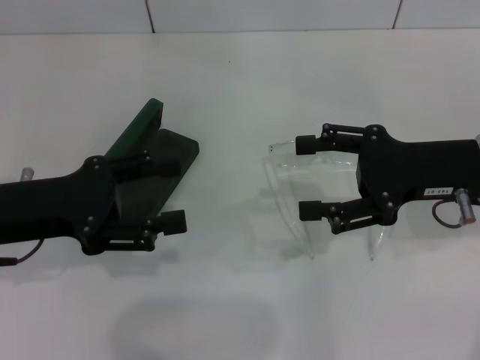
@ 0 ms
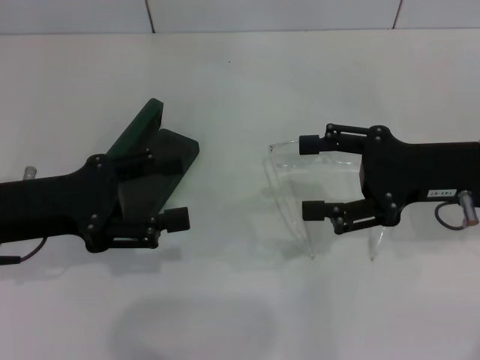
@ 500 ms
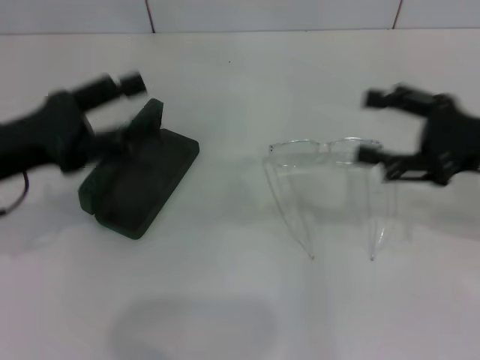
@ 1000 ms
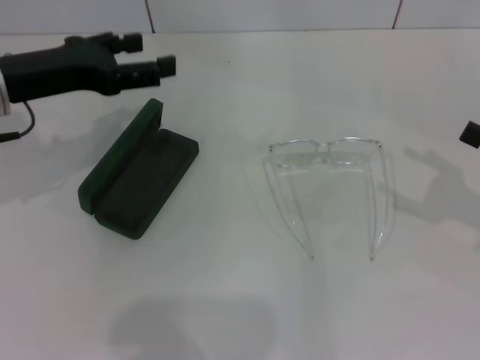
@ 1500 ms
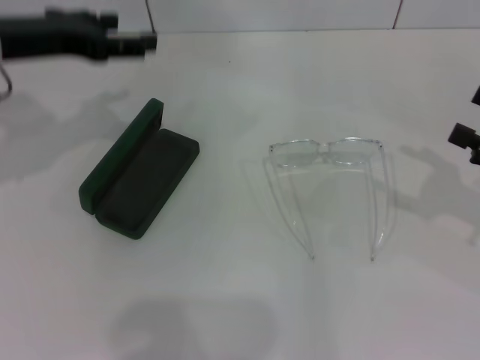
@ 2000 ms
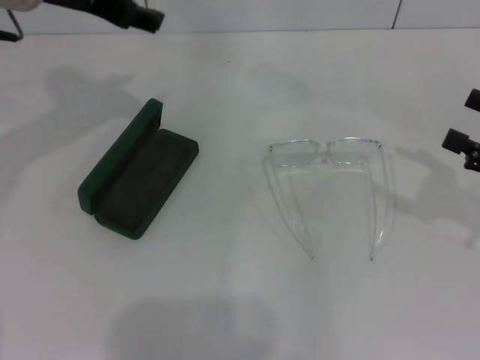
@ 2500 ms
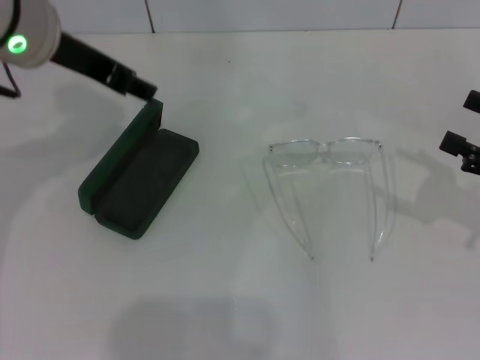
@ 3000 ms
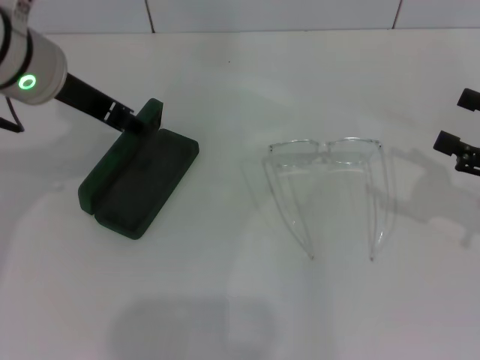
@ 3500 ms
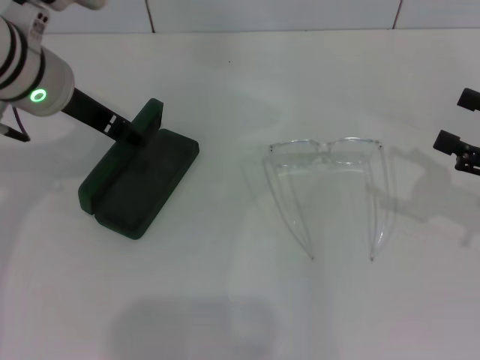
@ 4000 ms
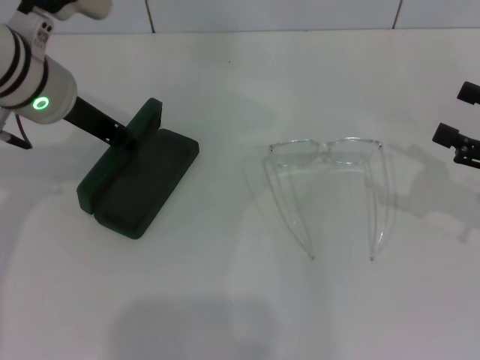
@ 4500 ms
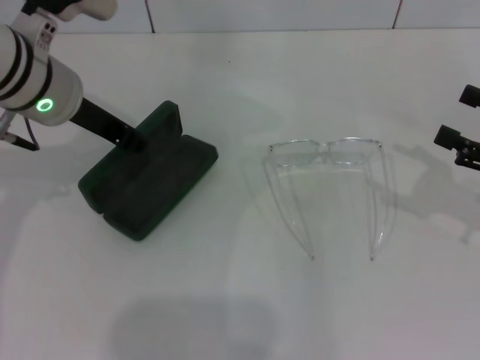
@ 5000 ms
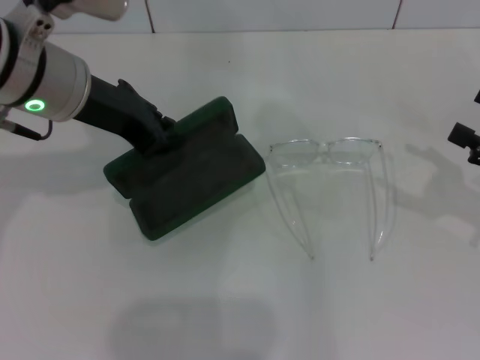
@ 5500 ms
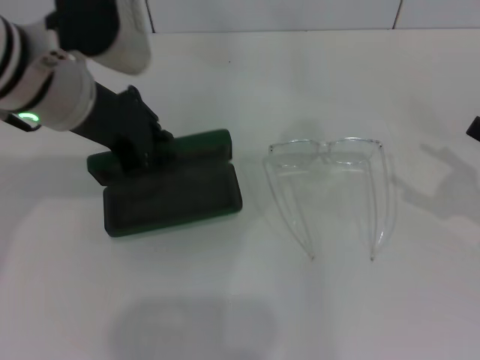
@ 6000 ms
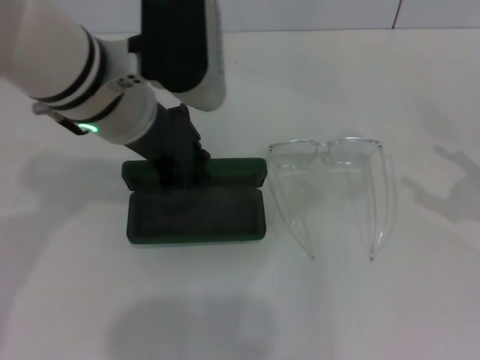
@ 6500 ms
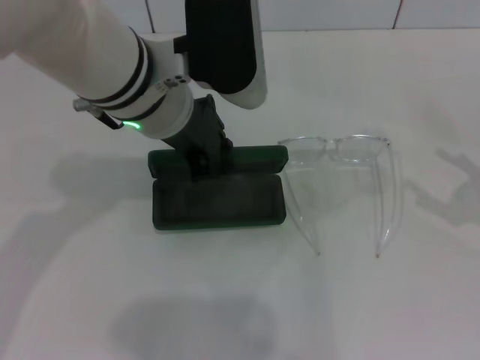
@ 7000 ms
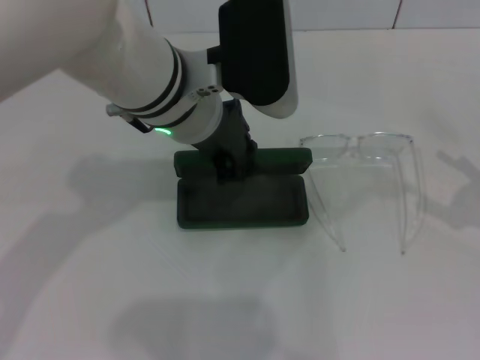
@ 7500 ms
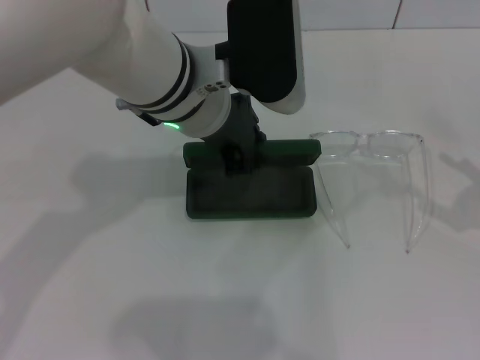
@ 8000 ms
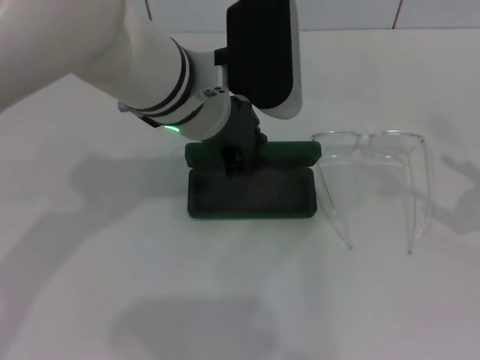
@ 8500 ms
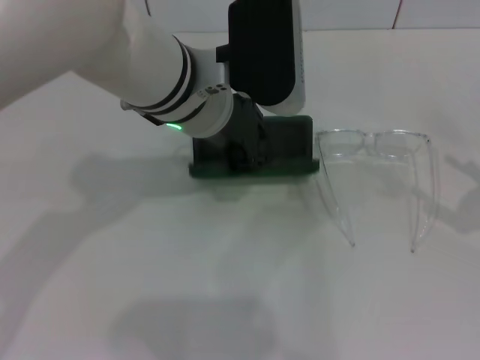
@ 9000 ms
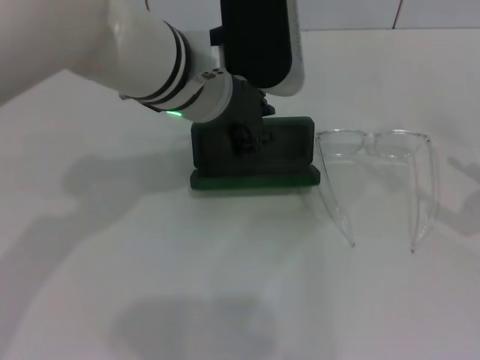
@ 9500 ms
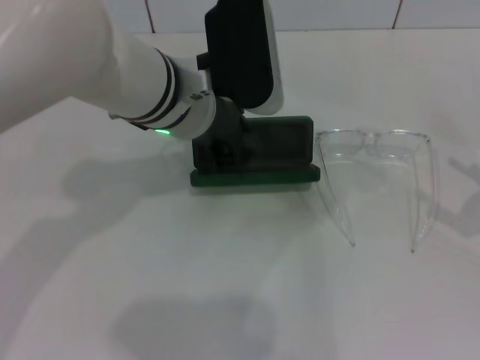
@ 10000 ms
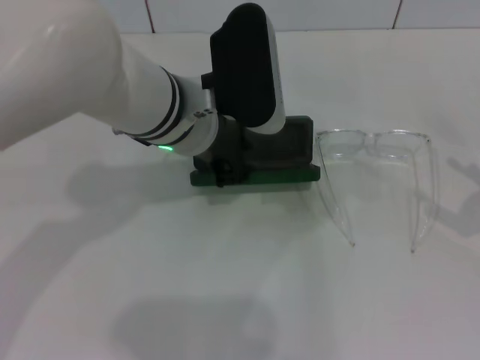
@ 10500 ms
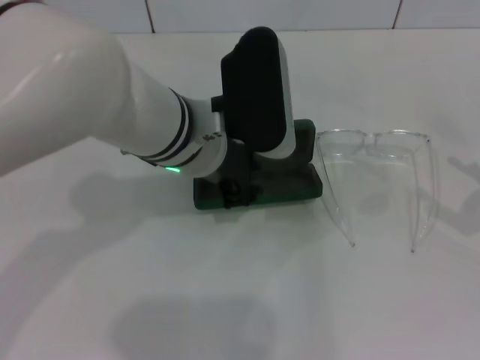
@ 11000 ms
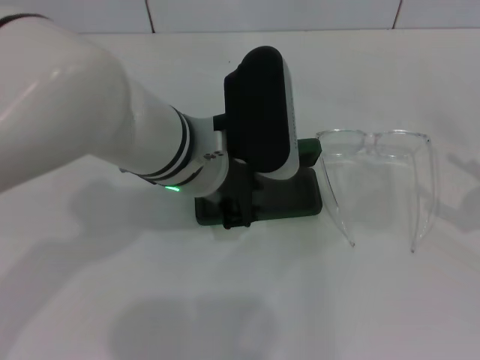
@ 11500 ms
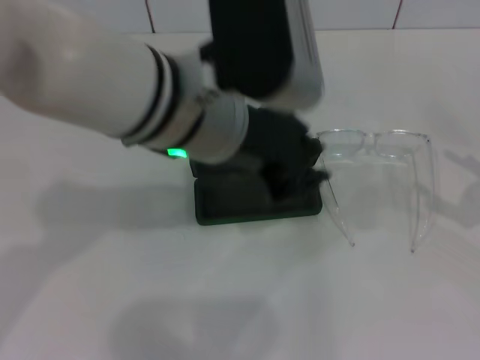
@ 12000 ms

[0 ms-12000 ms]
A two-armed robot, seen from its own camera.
Step, 0 ms to 5000 ms: Grab the glasses case with your left hand.
Step, 5500 ms to 11500 ms: Place the glasses case in the center of the table with your left hand.
0 ms to 2000 ms: The right gripper heads to the right, covering some 15 cm; the left gripper is displaced forward and upward by roughly 15 cm.
2000 ms to 4000 ms: The left gripper heads to the right, covering about 5 cm.
4000 ms to 6000 ms: The left gripper closes its fingers.
6000 ms to 8000 ms: The left gripper moves to the right, about 10 cm.
8000 ms to 10000 ms: The grippers move only a little.
10000 ms to 12000 ms: The left gripper is displaced backward and upward by about 10 cm.

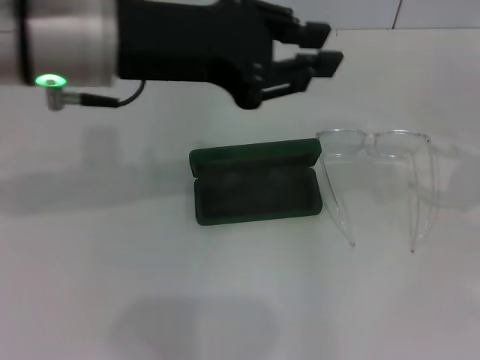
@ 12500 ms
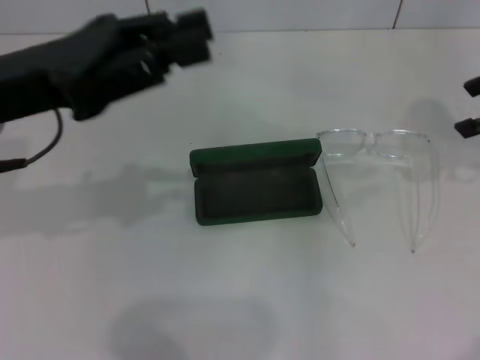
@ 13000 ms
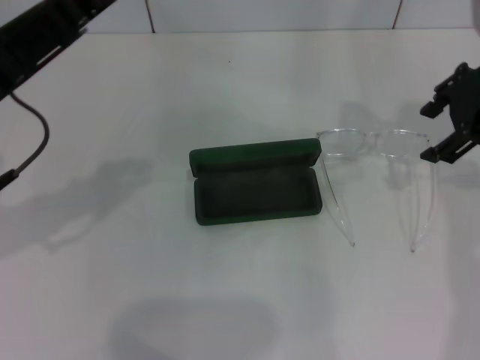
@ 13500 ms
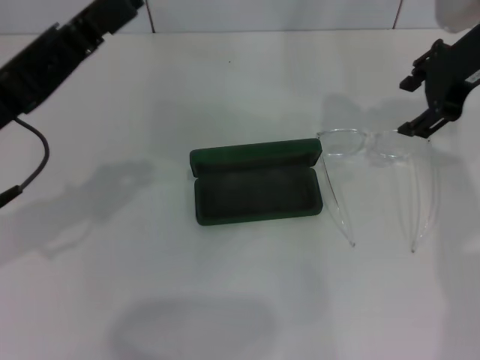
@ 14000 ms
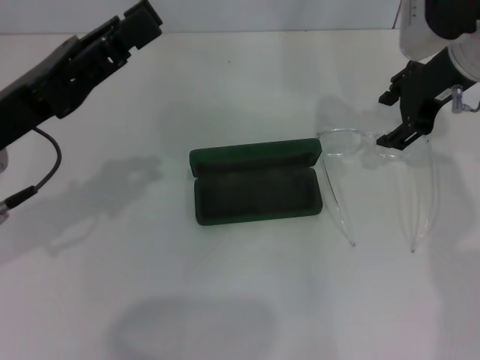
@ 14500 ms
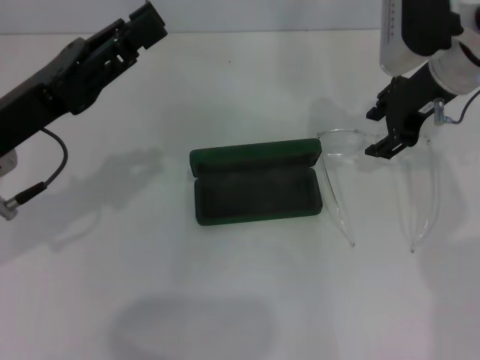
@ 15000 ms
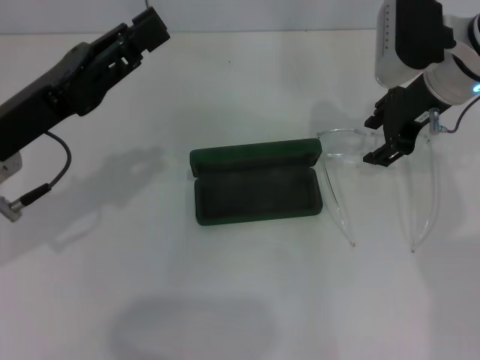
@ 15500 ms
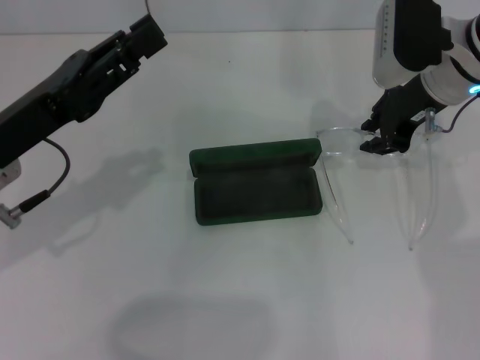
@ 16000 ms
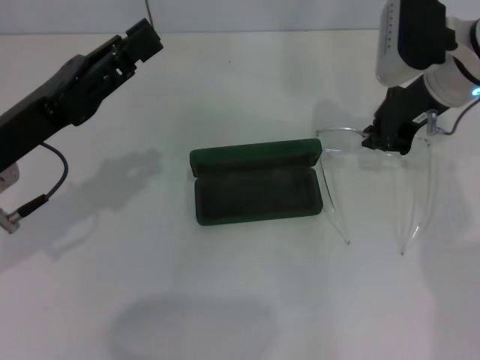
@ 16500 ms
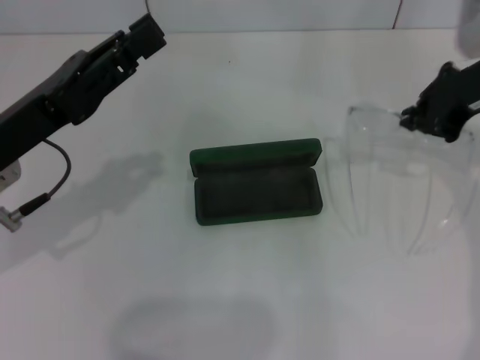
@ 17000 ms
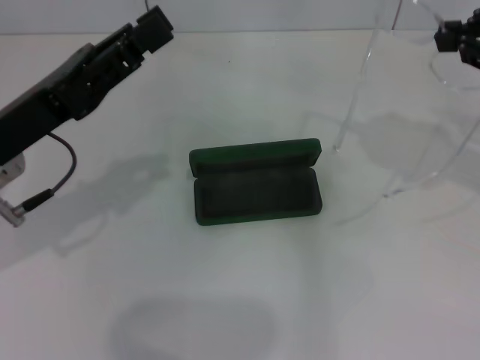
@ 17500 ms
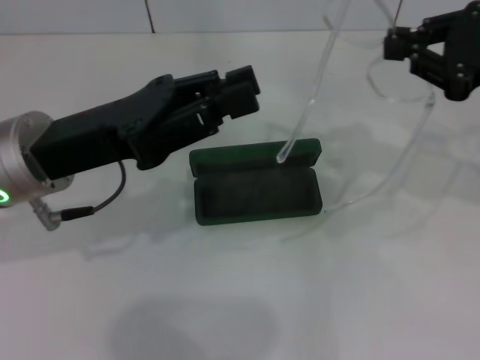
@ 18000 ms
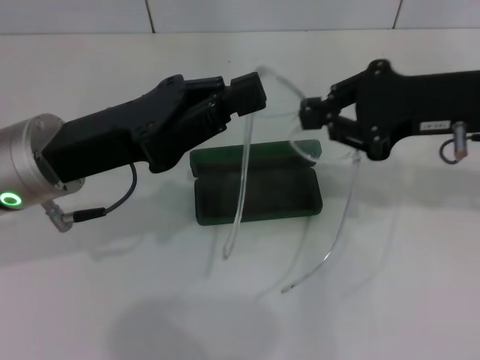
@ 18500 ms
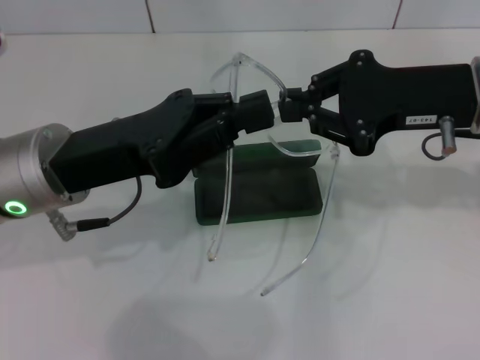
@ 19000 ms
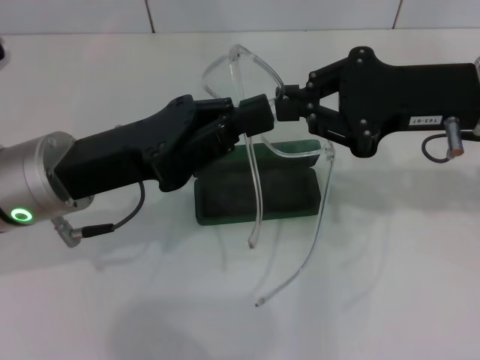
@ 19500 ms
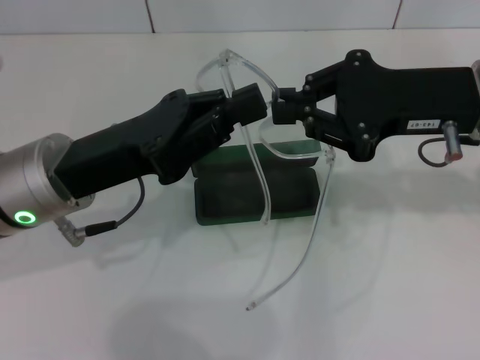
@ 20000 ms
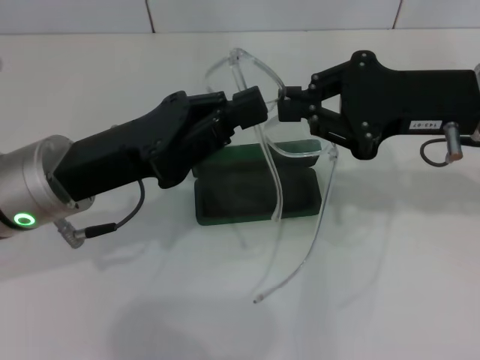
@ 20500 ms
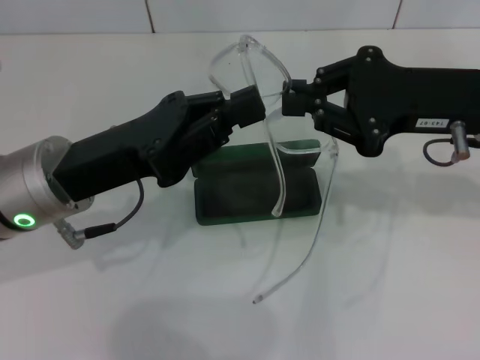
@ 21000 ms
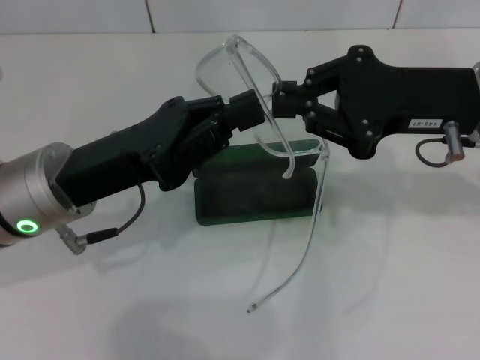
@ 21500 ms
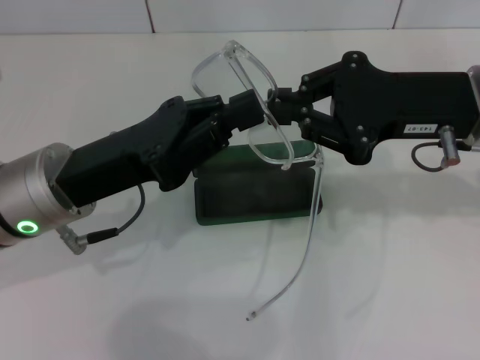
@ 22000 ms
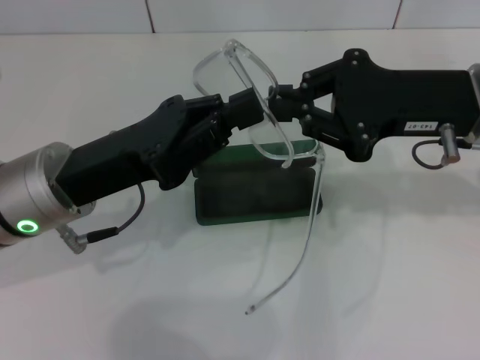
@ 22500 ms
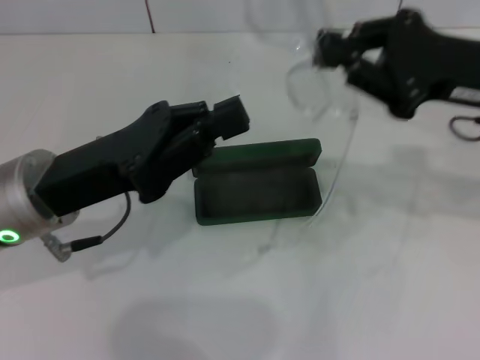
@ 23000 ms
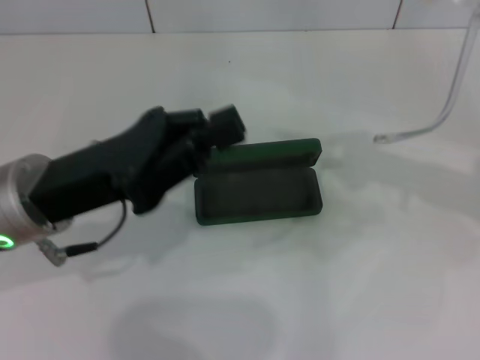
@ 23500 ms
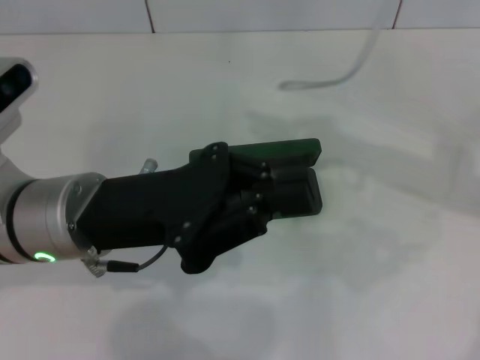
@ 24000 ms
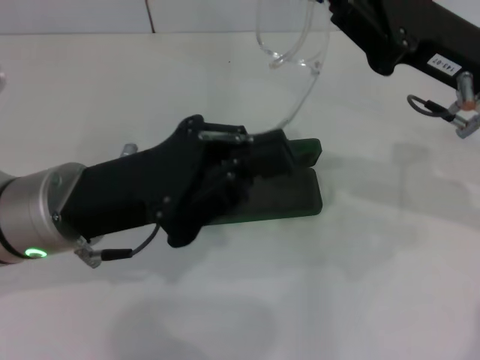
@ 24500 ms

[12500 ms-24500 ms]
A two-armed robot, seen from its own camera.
Step, 12500 ms to 16000 ms: Grab the eyeglass frame with your right hand.
12500 ms to 14500 ms: The left gripper shifts about 15 cm downward and to the left, while the right gripper is displaced to the left and forward by about 20 cm.
14500 ms to 16500 ms: The right gripper closes up.
16500 ms to 18500 ms: The right gripper moves backward, roughly 10 cm, and reaches some 10 cm to the right, then returns. The left gripper heads to the right, covering about 5 cm.
18500 ms to 20500 ms: The grippers stay close to where they were, moving slightly.
20500 ms to 22500 ms: The two grippers keep their place.
22500 ms to 24500 ms: The right gripper reaches roughly 10 cm to the right, then returns.

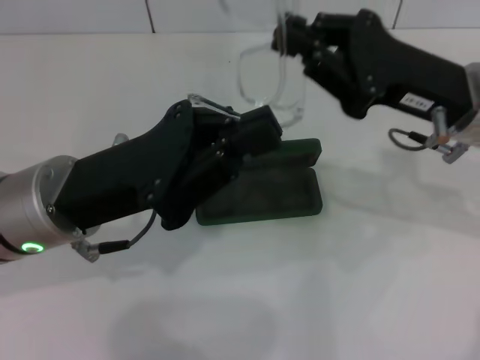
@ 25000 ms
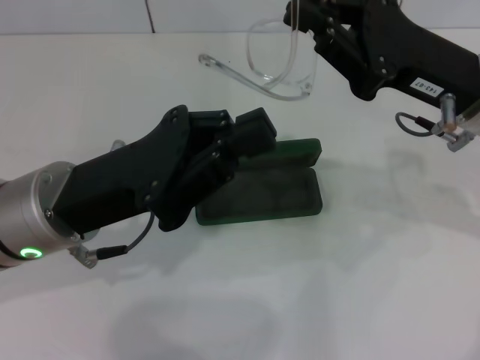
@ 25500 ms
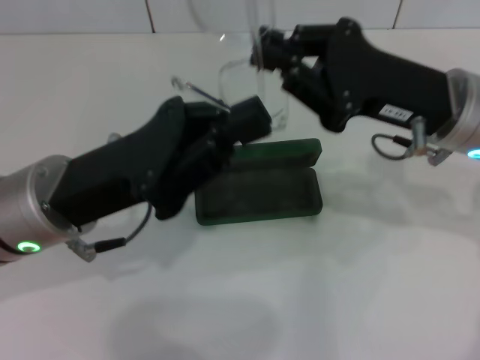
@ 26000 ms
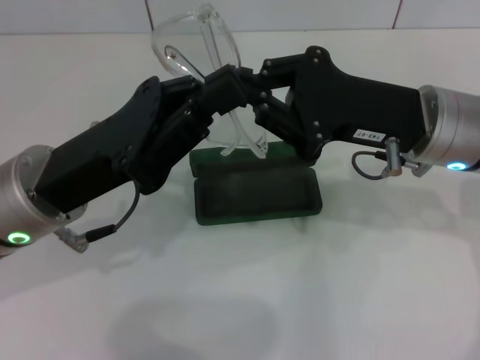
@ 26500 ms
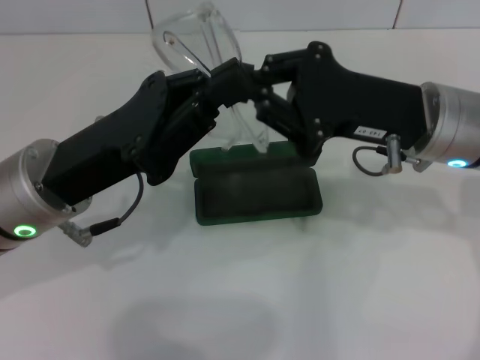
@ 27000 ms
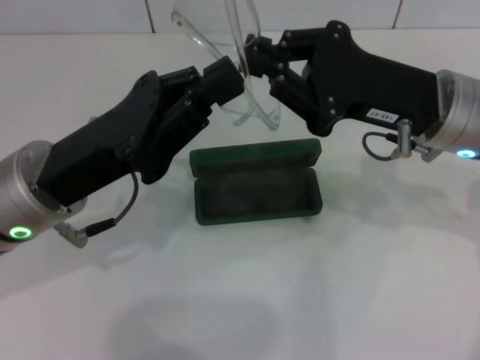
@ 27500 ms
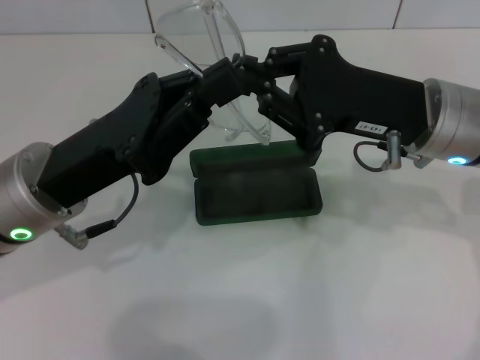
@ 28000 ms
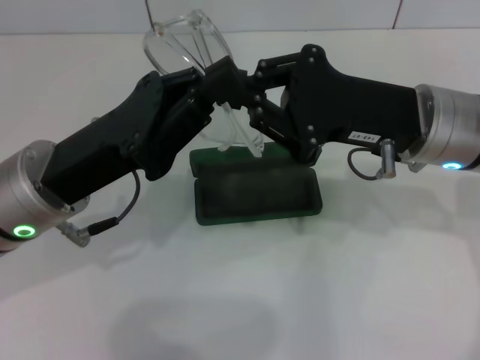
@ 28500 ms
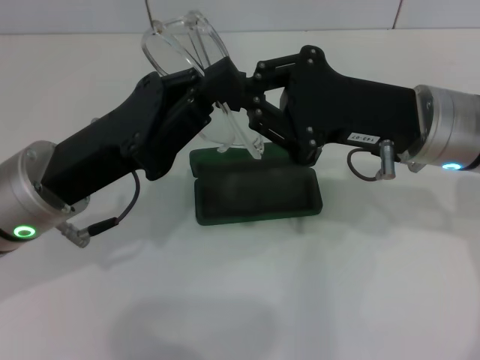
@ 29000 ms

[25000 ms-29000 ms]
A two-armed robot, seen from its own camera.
Step, 25000 ms to 27000 ms: Fold the frame with your left hand.
27000 ms to 29000 ms: Both grippers stay put.
